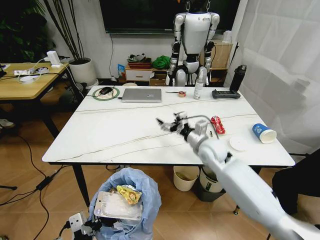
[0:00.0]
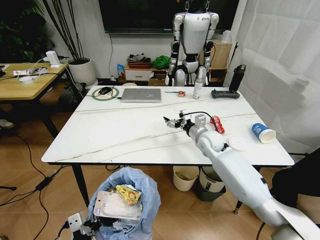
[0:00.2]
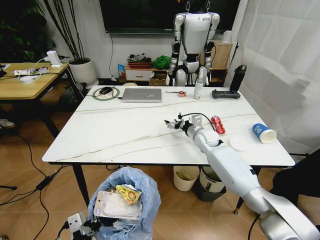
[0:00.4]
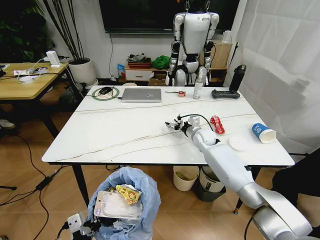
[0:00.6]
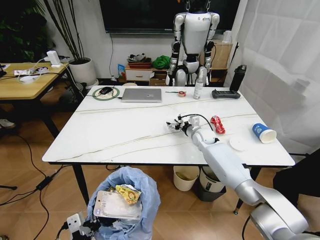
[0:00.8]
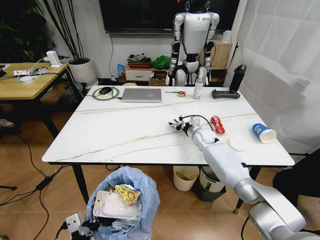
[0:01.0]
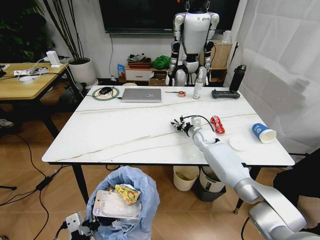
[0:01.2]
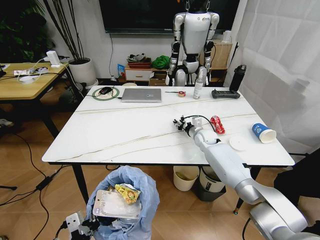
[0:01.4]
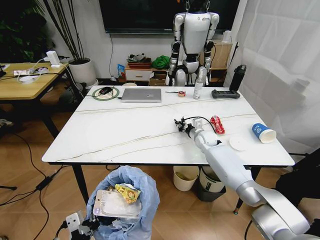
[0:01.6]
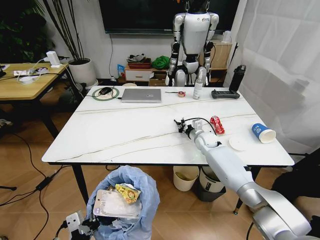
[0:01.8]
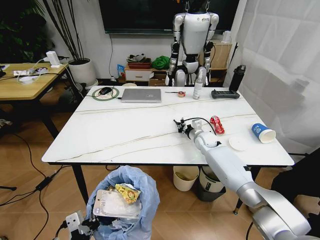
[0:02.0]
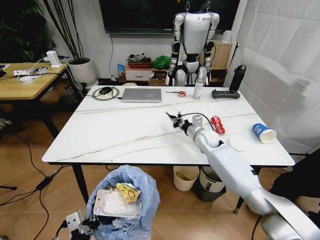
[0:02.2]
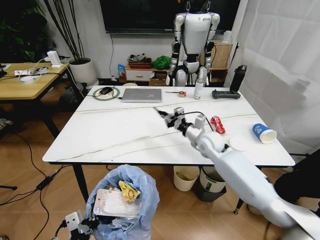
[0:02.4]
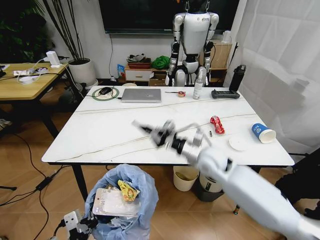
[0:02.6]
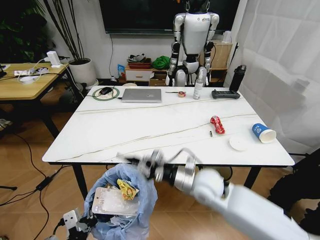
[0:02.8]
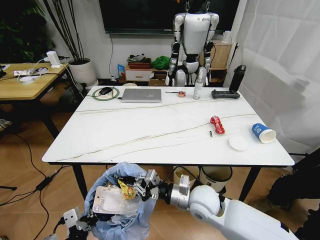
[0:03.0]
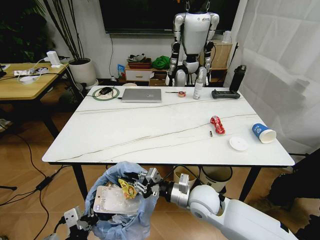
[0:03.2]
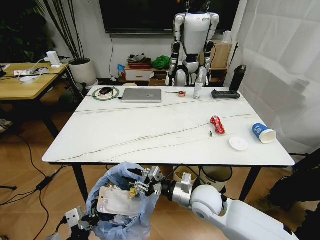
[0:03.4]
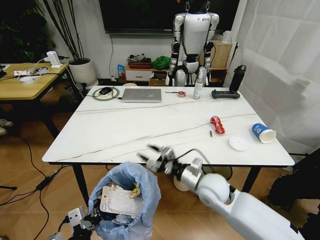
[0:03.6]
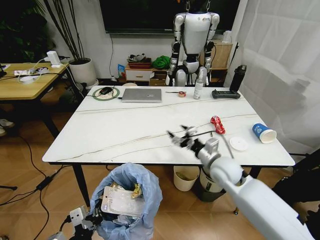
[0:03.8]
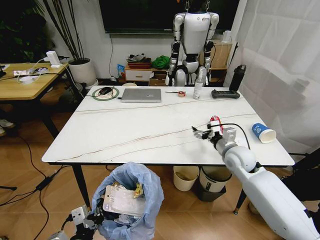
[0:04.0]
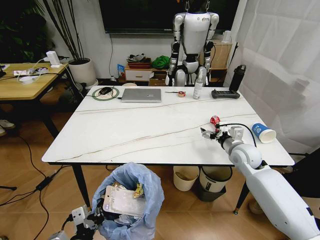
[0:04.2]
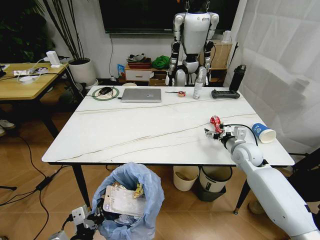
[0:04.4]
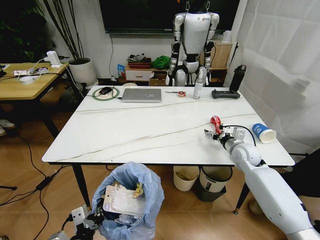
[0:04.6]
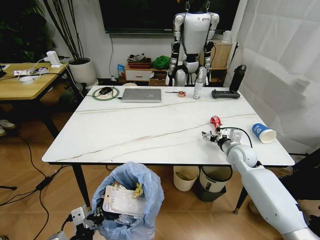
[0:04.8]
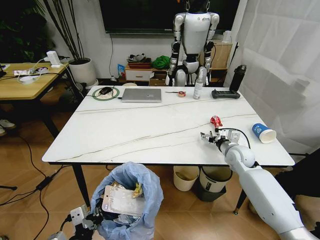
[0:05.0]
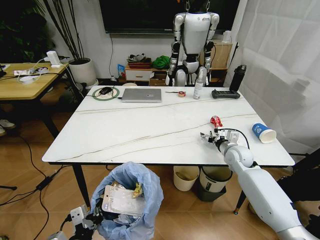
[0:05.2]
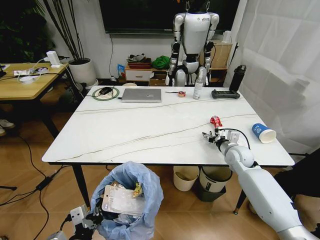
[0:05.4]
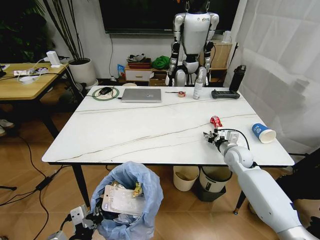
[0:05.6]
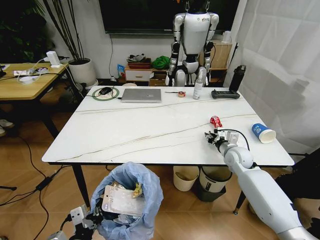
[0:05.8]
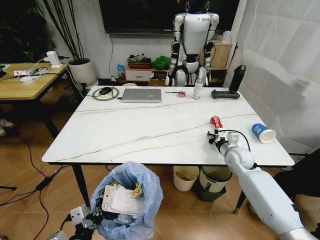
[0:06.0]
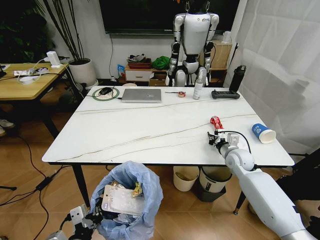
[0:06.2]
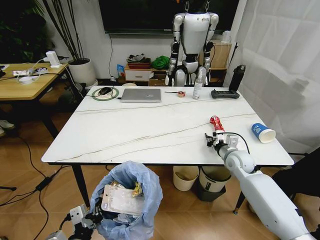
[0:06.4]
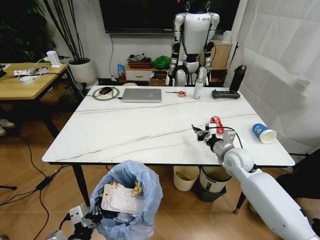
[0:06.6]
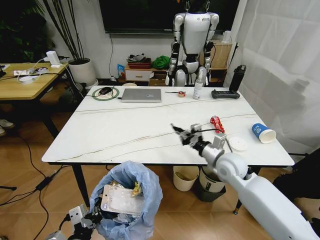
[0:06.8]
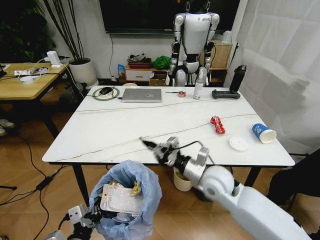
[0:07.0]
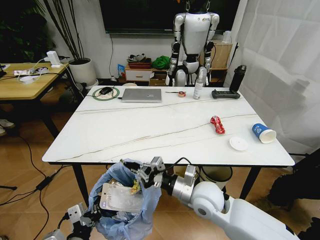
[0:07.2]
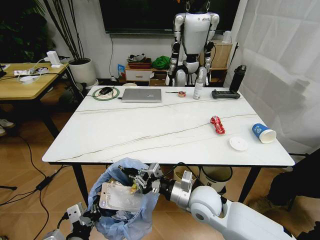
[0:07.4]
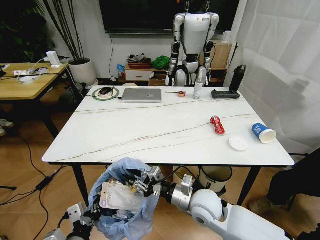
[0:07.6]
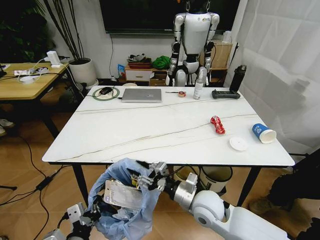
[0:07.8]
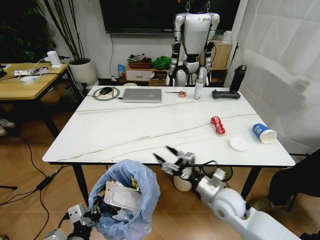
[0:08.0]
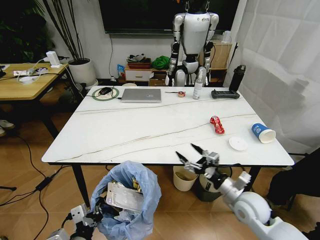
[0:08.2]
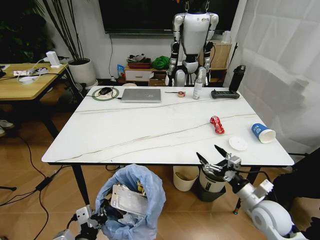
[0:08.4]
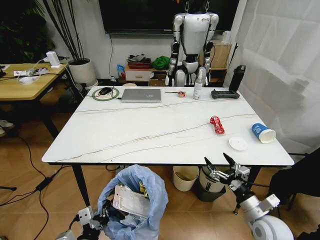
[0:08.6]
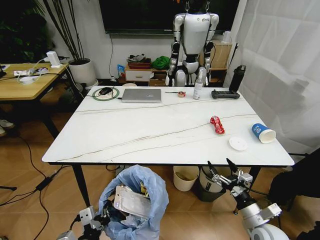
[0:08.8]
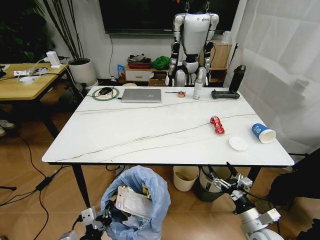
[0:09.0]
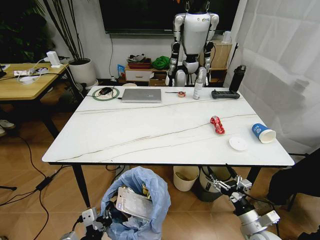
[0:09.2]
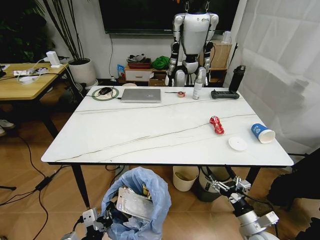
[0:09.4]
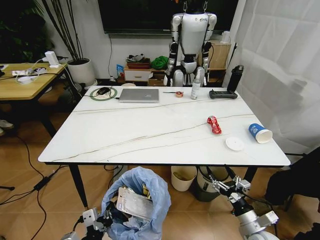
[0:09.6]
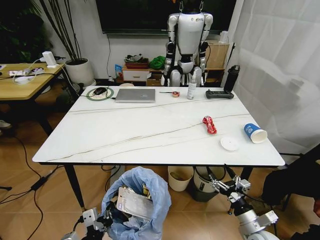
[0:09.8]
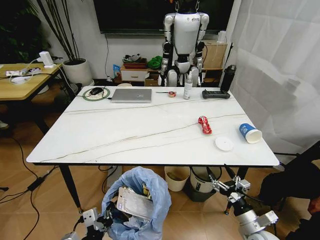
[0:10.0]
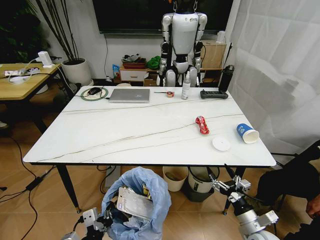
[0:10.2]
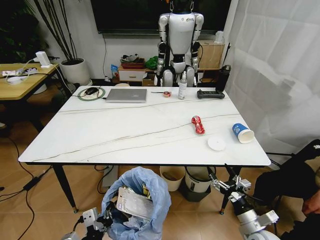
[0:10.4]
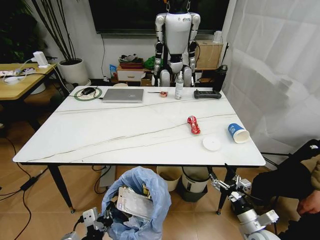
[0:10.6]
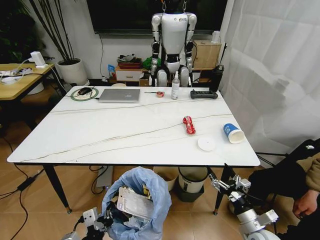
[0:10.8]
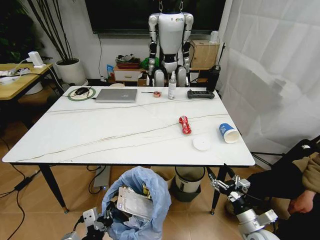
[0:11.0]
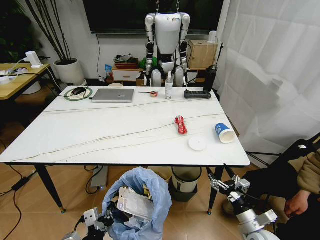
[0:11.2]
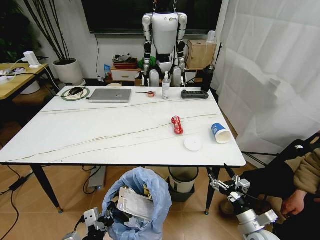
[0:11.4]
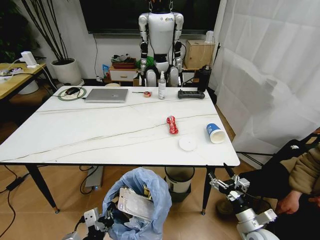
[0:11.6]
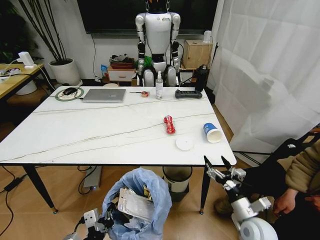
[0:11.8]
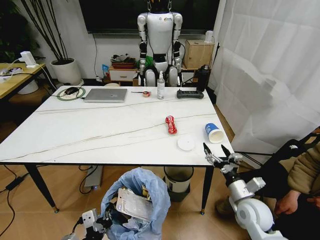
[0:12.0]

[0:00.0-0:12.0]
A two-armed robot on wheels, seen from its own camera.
Task of the whole recording: Pick up the trash bin and place the trash from the table into it.
0:00.0 to 0:01.6: The right gripper travels forward and downward by some 15 cm, and closes up.
0:01.6 to 0:03.0: The right gripper shifts some 30 cm backward.
0:03.0 to 0:04.4: The right gripper shifts roughly 25 cm to the right and forward, and opens its fingers.
0:04.4 to 0:06.0: The right gripper closes up.
0:06.0 to 0:07.6: The right gripper goes roughly 25 cm to the left and backward.
0:07.6 to 0:09.0: The right gripper shifts roughly 25 cm to the right, backward and downward, and opens up.
0:10.4 to 0:12.0: The right gripper heads forward and upward, covering some 10 cm.

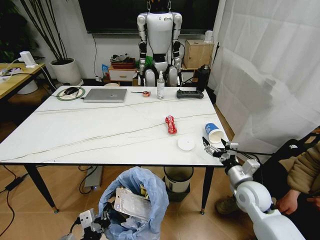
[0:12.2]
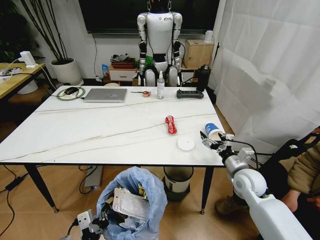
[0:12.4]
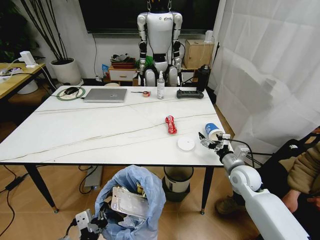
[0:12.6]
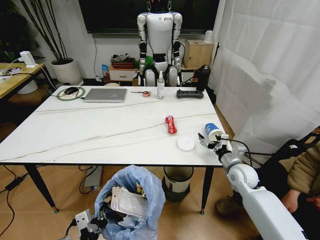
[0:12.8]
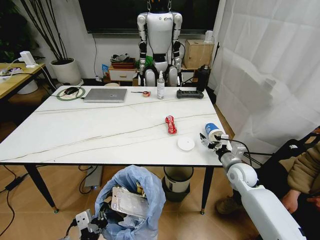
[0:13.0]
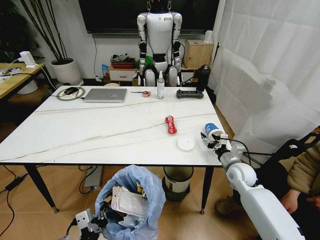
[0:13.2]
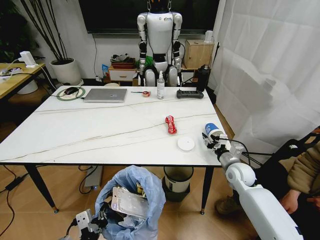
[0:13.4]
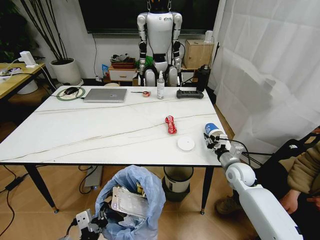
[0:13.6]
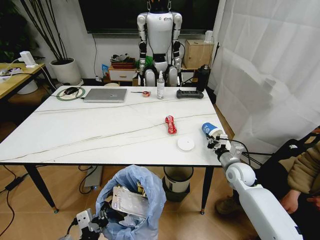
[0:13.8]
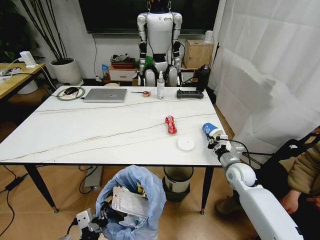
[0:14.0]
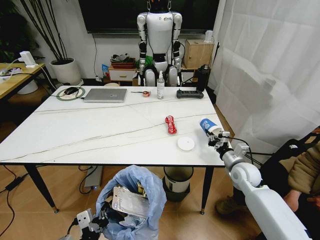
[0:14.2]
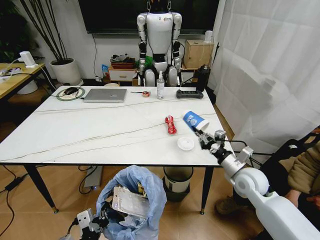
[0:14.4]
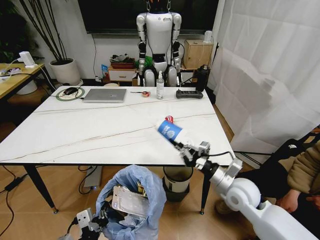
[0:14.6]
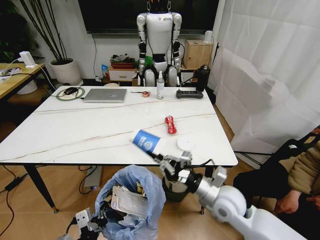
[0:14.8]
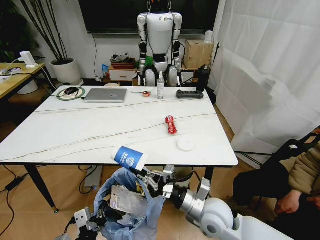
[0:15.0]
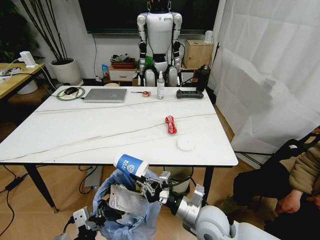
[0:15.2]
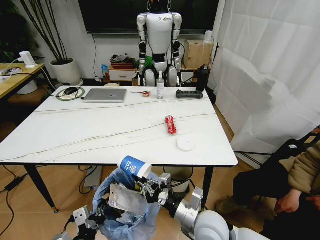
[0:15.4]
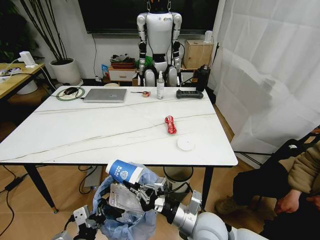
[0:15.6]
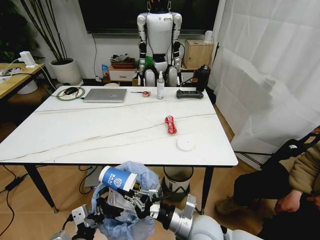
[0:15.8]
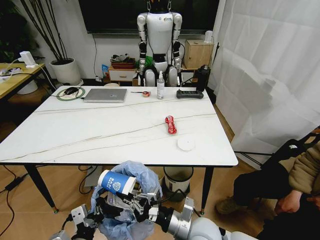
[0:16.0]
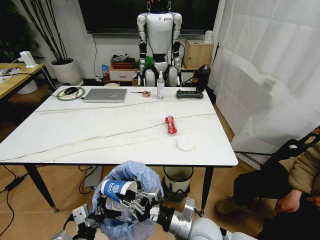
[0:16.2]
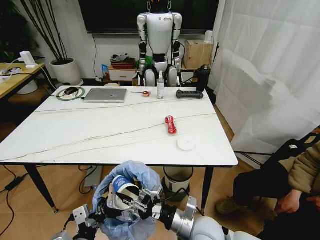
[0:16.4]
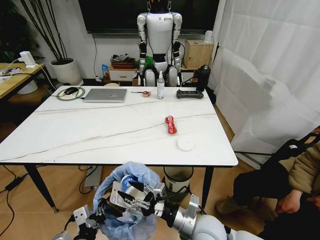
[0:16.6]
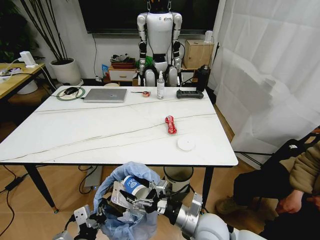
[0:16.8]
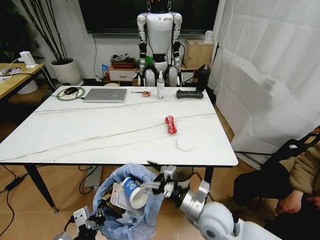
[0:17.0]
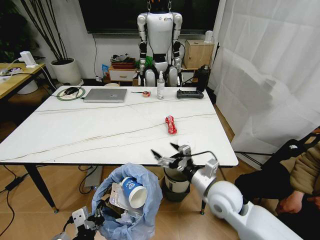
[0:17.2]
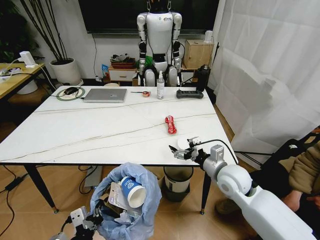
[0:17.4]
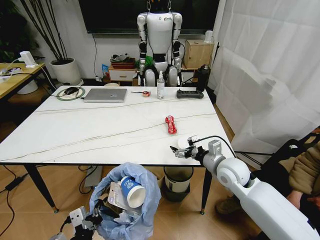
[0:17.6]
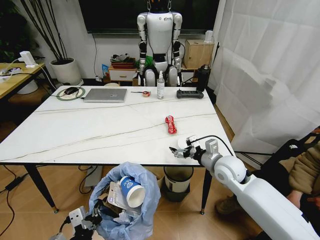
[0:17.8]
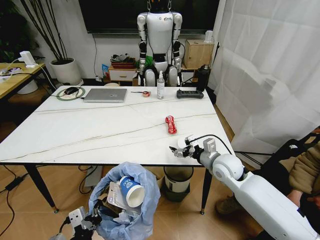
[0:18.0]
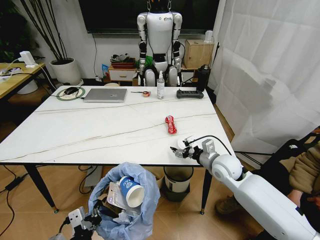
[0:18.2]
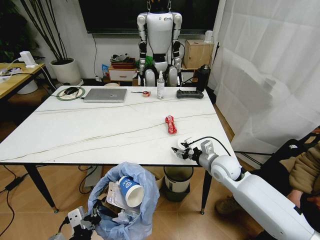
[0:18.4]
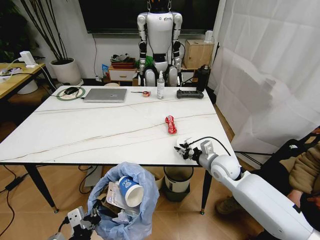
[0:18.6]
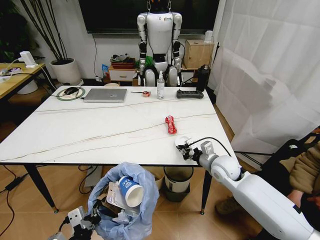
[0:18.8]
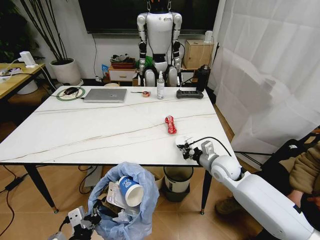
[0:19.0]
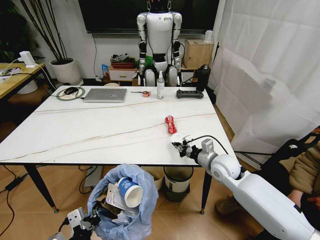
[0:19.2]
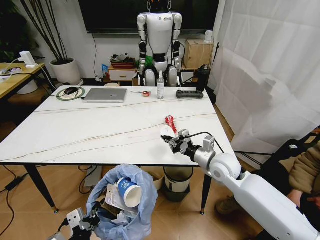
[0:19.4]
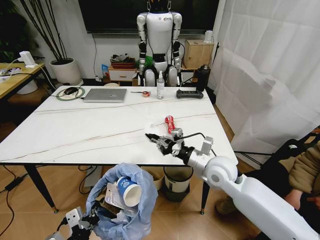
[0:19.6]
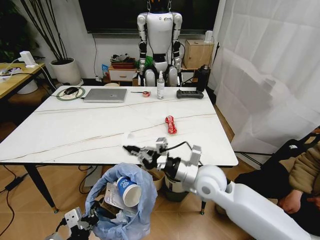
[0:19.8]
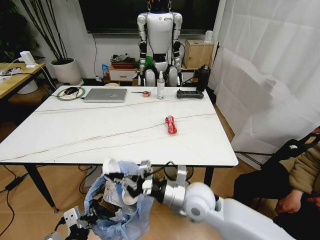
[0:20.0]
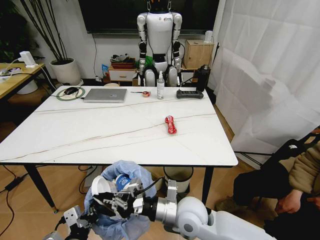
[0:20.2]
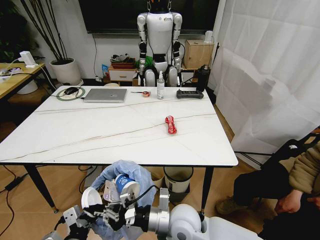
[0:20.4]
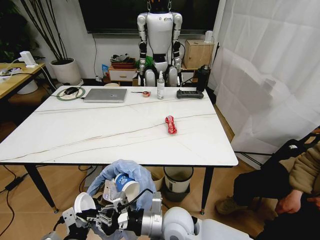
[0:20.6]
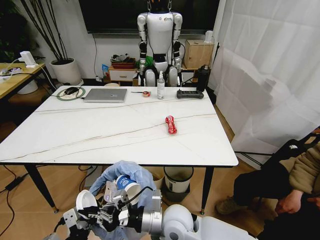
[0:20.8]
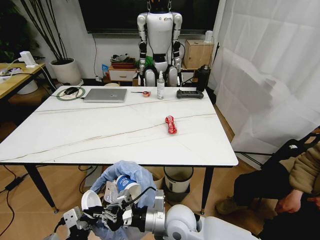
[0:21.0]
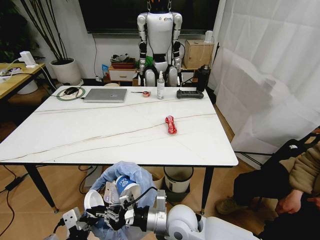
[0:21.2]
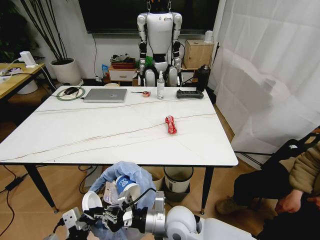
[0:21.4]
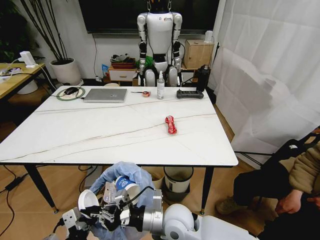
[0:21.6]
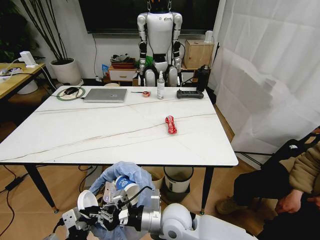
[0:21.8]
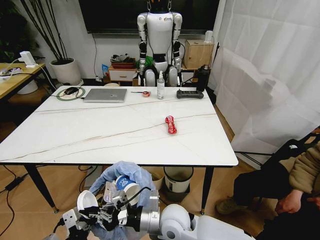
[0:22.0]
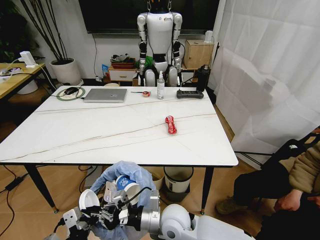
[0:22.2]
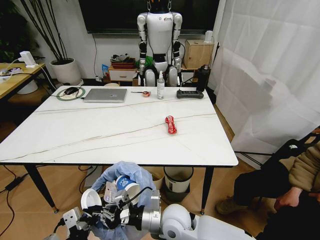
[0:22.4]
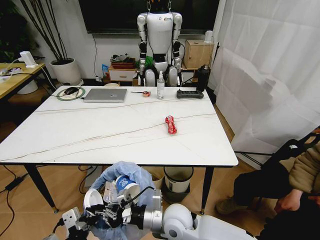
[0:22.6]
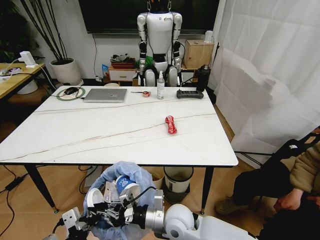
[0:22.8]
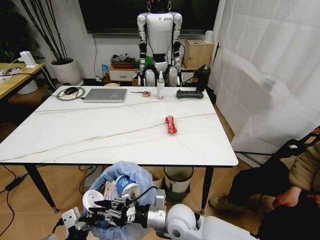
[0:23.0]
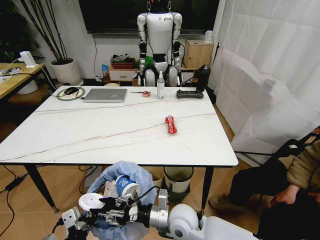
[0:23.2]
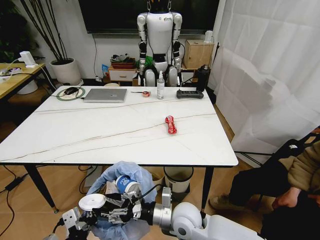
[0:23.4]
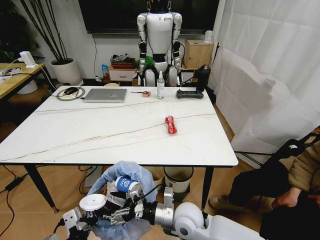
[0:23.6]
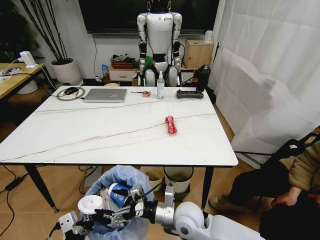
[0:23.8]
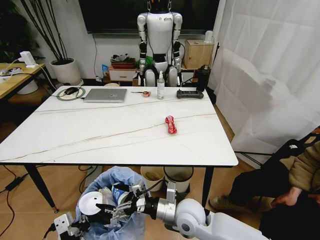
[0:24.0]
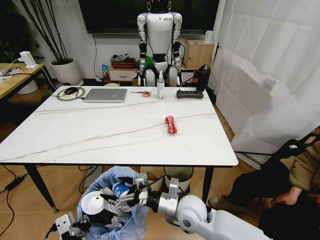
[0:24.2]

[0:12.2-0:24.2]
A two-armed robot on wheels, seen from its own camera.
Task of the whole recording: Pick up the trash bin and place the trash from the table into it.
0:12.2 to 0:13.8: The right gripper travels forward by roughly 10 cm, and closes.
0:13.8 to 0:15.2: The right gripper is displaced backward and to the left by about 25 cm.
0:15.2 to 0:16.6: The right gripper opens up.
0:16.6 to 0:18.2: The right gripper is displaced forward and to the right by some 20 cm.
0:18.2 to 0:19.8: The right gripper is displaced to the left and backward by roughly 10 cm, and closes up.
0:19.8 to 0:21.2: The right gripper is displaced backward, to the left and downward by about 15 cm.
0:21.2 to 0:22.6: There are only small adjustments of the grippers.
0:22.6 to 0:24.2: The right gripper ends up approximately 5 cm from where it was, and opens its fingers.
